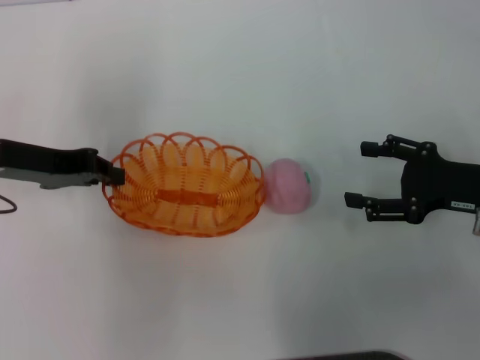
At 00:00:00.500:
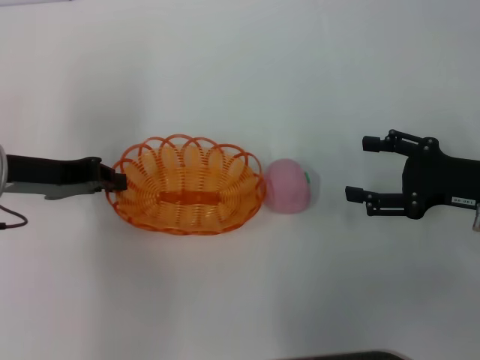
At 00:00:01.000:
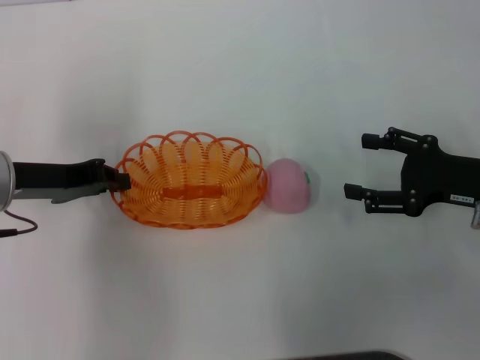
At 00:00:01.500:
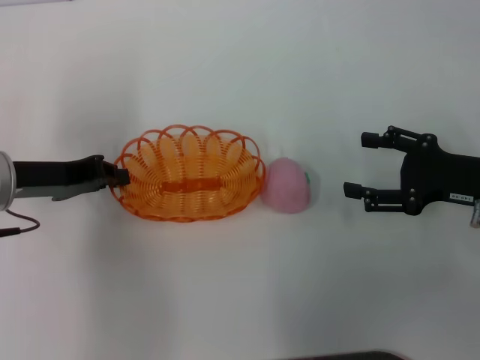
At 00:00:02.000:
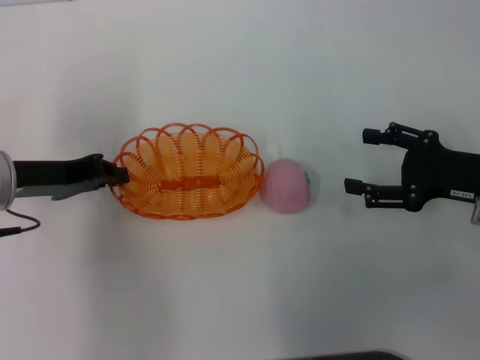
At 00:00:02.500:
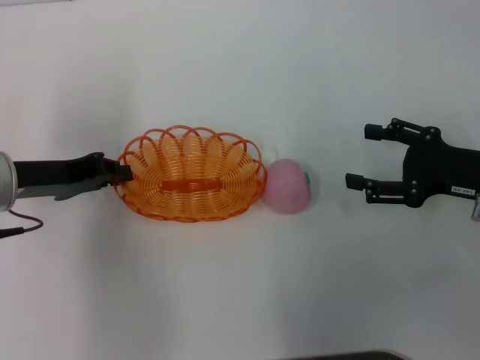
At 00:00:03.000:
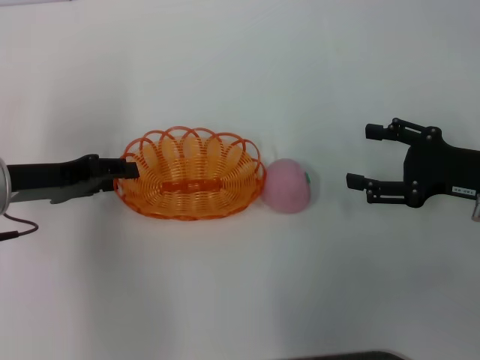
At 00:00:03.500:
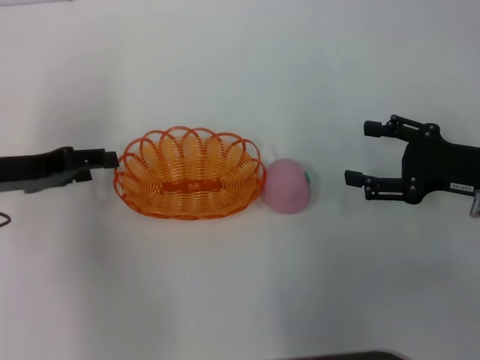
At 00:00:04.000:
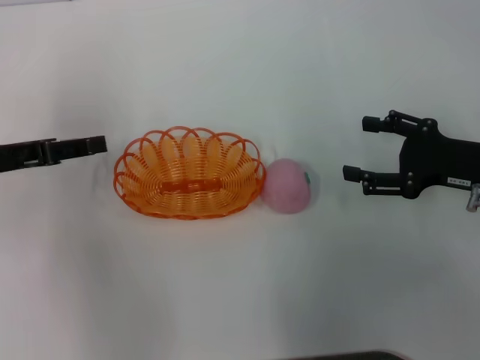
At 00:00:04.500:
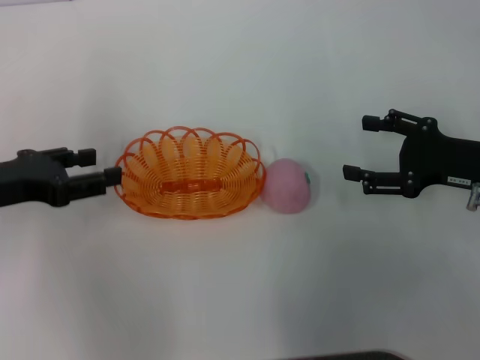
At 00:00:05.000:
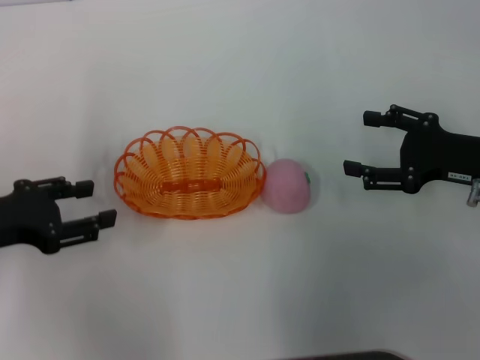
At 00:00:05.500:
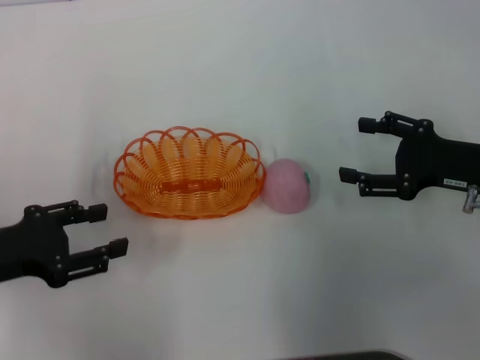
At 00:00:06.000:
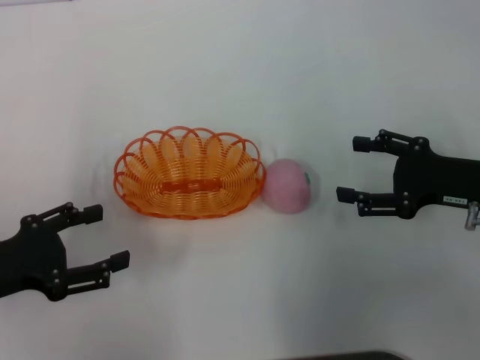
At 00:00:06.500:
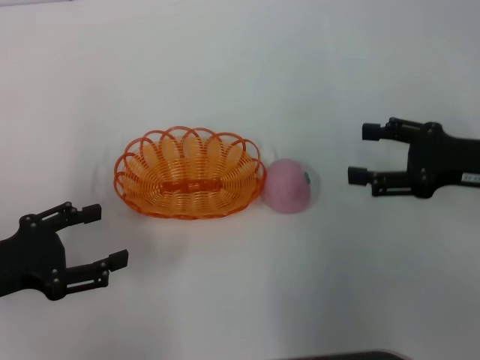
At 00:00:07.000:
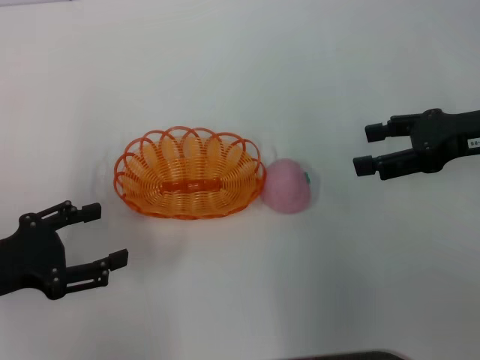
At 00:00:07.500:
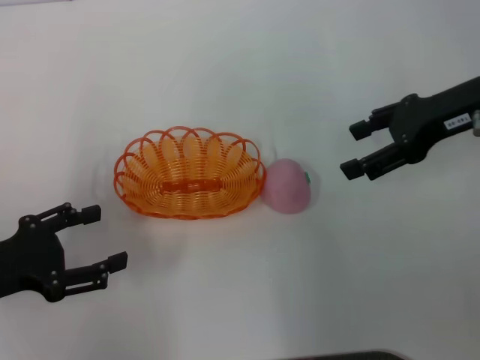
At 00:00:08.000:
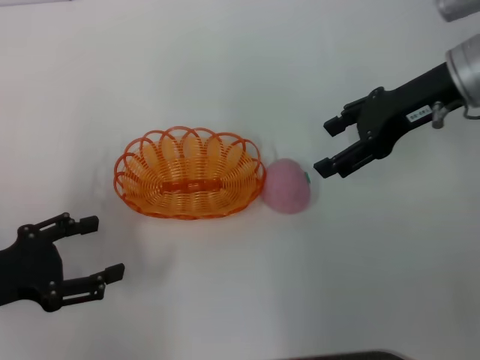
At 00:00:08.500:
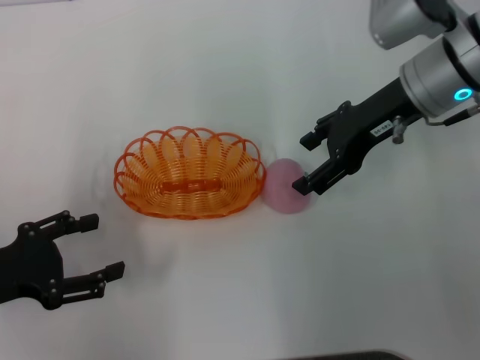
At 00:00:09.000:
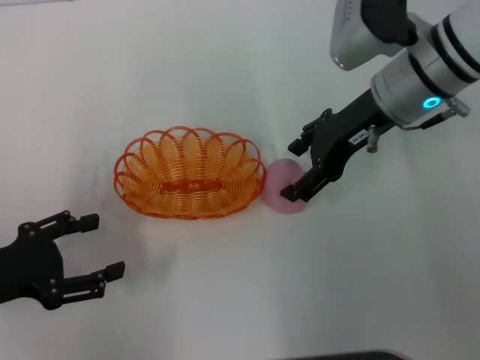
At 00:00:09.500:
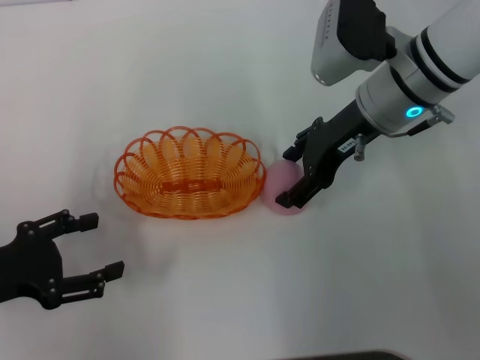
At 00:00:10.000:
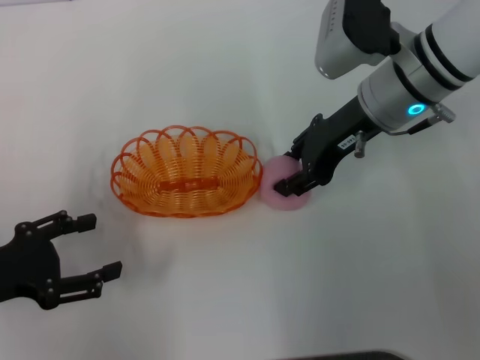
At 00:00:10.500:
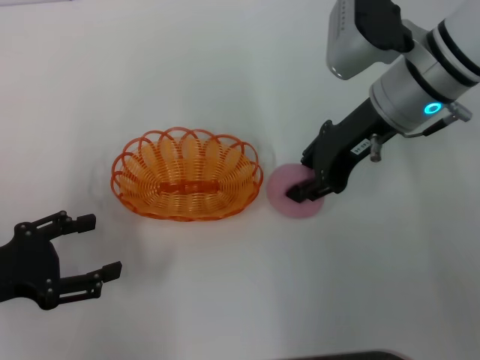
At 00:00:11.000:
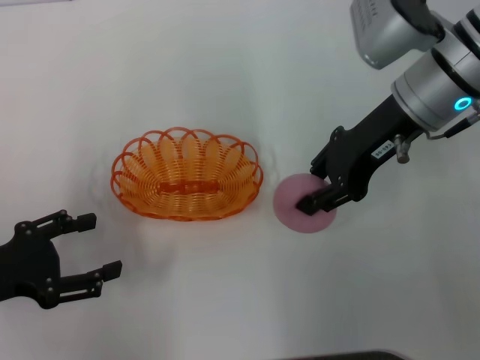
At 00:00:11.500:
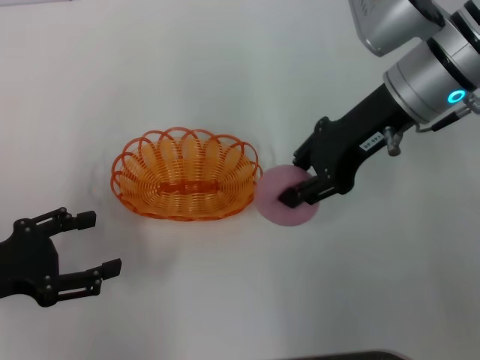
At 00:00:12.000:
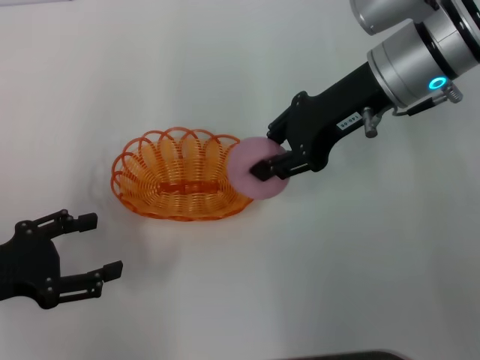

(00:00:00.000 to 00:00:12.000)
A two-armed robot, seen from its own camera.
Step, 00:00:00.000 - 00:00:03.000: Place the basket in the center of view with the left gripper.
Step, 00:00:03.500 - 00:00:11.000: Pick up the peach with the right gripper.
00:00:00.000 - 00:00:02.000: There are only small adjustments of the grippers.
00:00:02.000 - 00:00:04.000: The left gripper opens up.
00:00:04.000 - 00:00:06.000: The left gripper shifts some 10 cm backward.
00:00:06.000 - 00:00:08.000: The right gripper heads upward, forward and to the left, covering about 15 cm.
00:00:08.000 - 00:00:10.000: The right gripper is displaced to the left by roughly 5 cm.
00:00:10.000 - 00:00:12.000: The right gripper closes its fingers.

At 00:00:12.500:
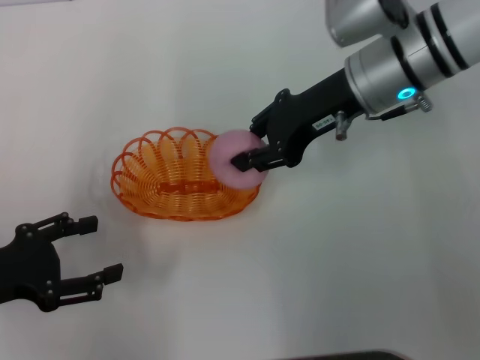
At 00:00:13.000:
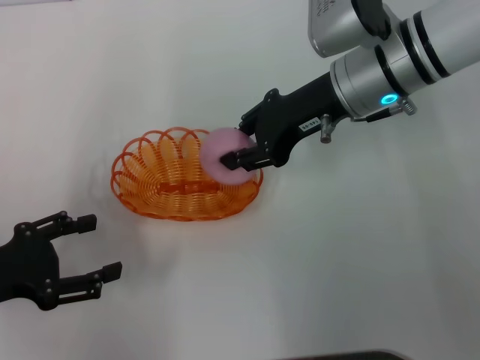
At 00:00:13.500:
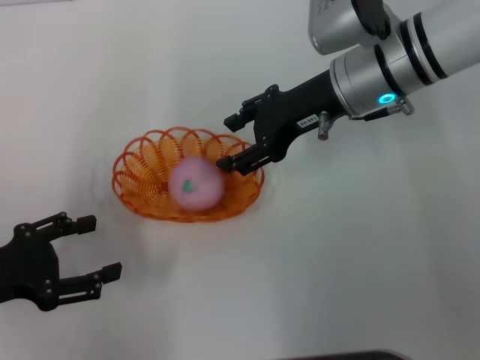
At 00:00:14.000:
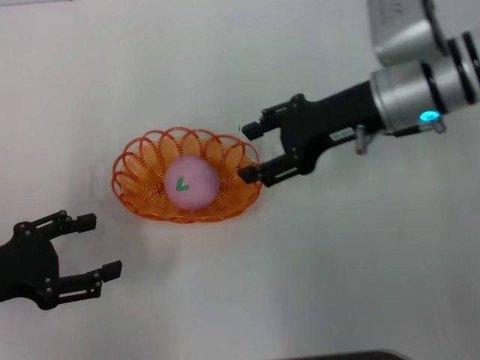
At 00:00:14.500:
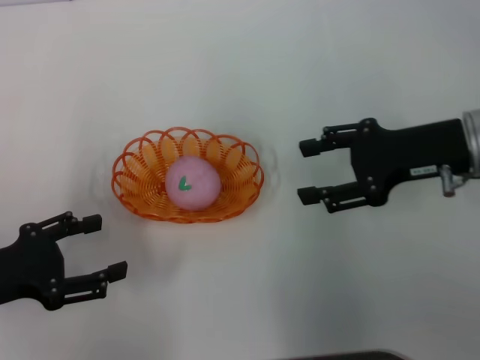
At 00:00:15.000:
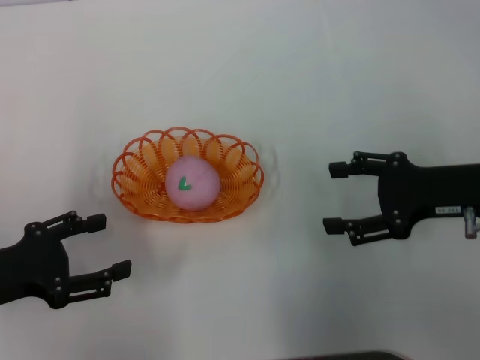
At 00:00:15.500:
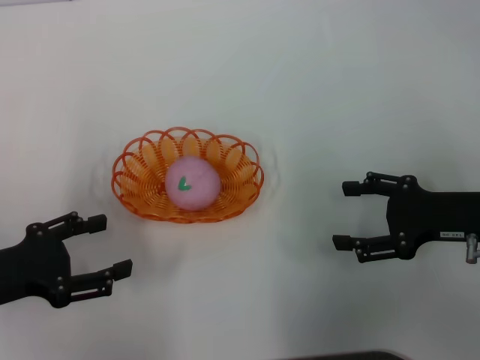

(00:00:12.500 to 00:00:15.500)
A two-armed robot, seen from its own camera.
00:00:12.500 - 00:00:14.000: The right gripper opens up.
00:00:14.000 - 00:00:15.500: The right gripper moves to the right, backward and downward, some 15 cm.
